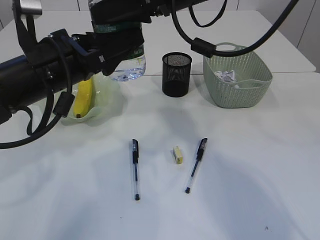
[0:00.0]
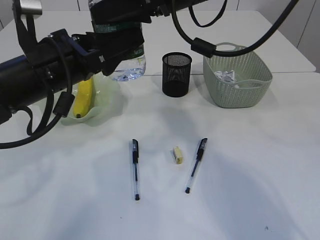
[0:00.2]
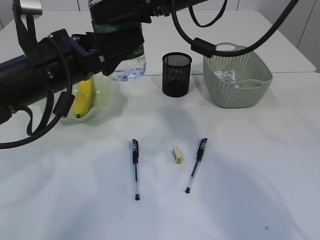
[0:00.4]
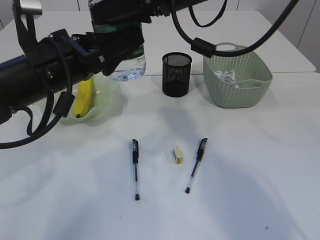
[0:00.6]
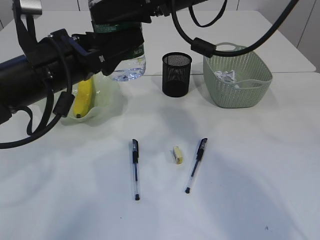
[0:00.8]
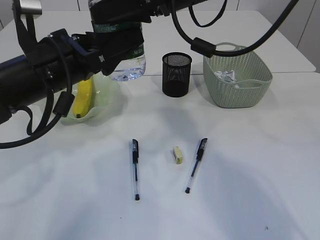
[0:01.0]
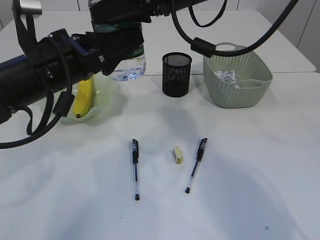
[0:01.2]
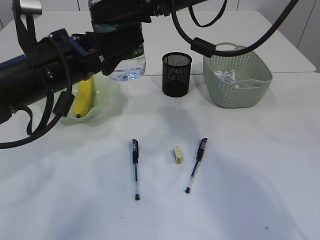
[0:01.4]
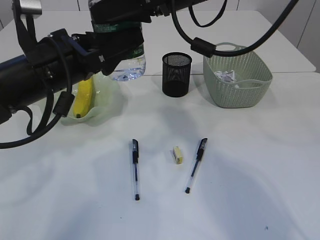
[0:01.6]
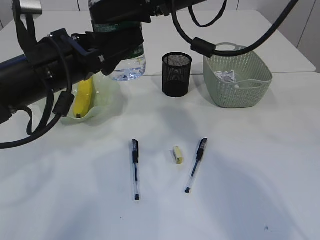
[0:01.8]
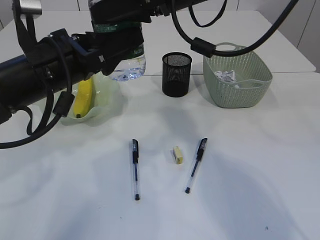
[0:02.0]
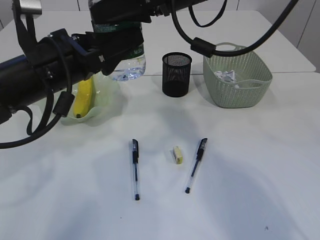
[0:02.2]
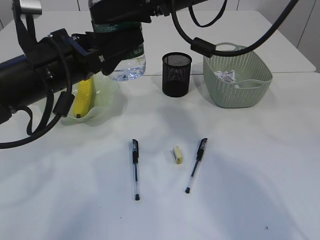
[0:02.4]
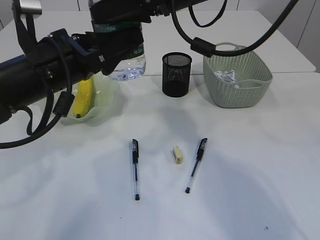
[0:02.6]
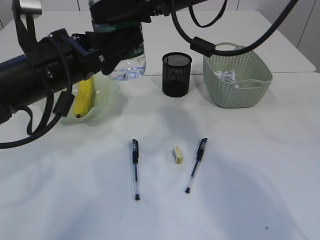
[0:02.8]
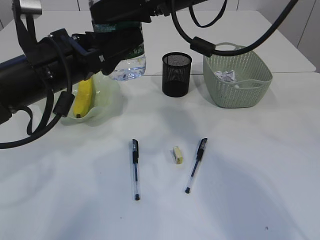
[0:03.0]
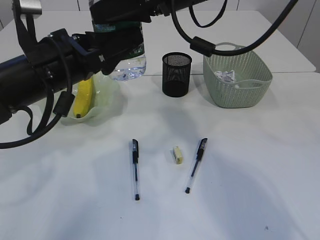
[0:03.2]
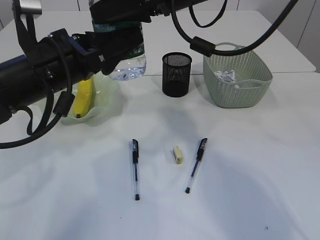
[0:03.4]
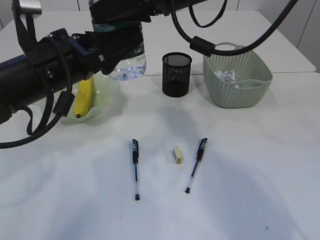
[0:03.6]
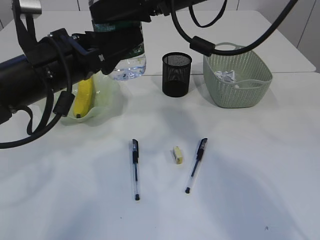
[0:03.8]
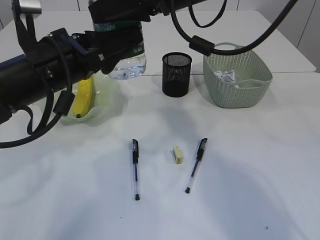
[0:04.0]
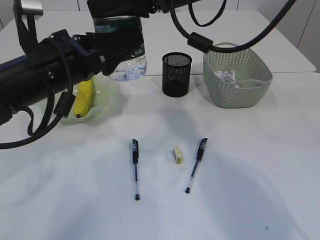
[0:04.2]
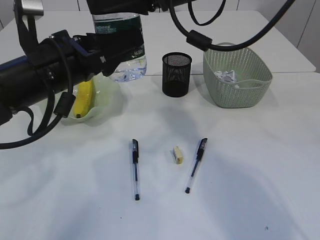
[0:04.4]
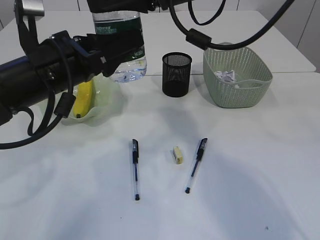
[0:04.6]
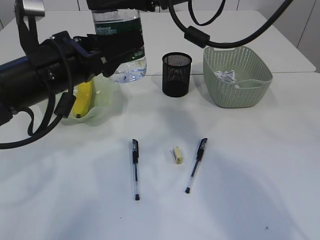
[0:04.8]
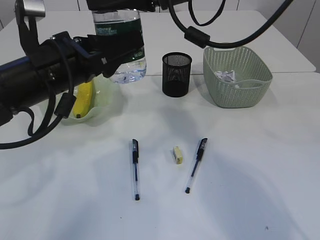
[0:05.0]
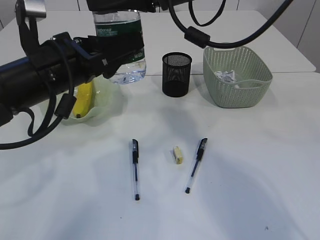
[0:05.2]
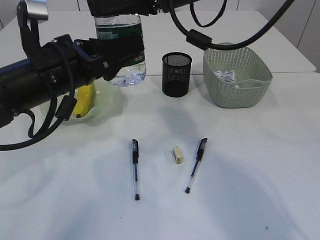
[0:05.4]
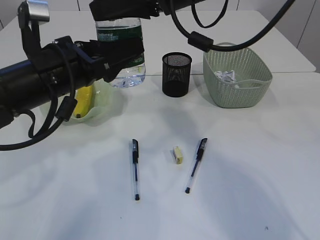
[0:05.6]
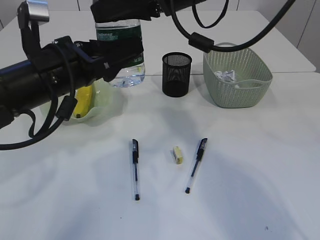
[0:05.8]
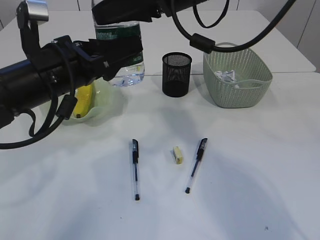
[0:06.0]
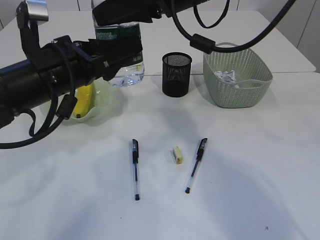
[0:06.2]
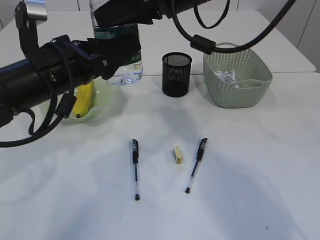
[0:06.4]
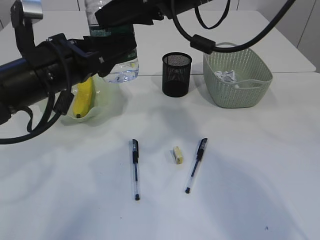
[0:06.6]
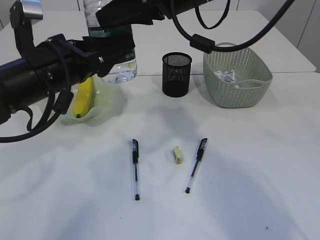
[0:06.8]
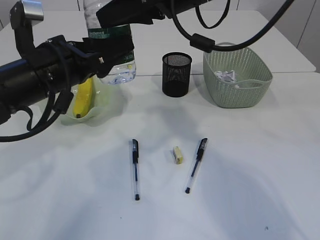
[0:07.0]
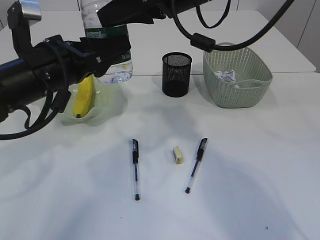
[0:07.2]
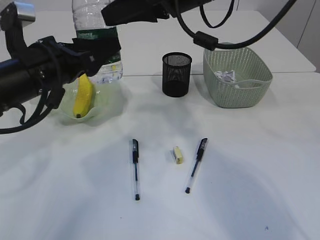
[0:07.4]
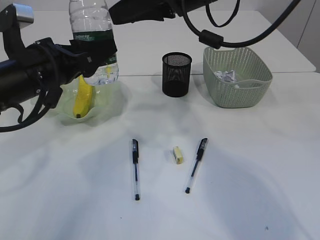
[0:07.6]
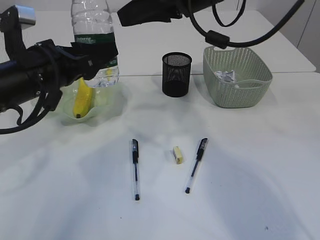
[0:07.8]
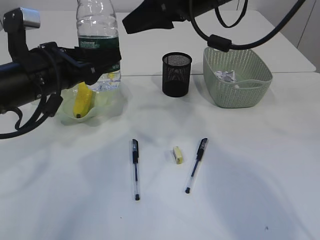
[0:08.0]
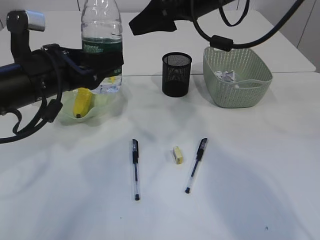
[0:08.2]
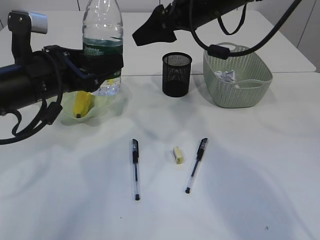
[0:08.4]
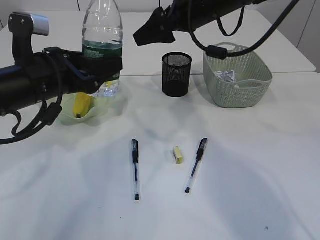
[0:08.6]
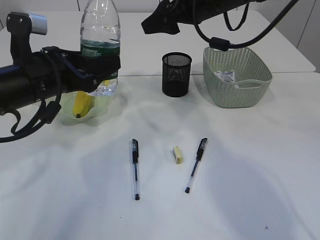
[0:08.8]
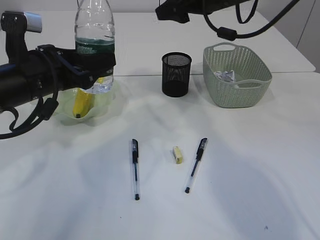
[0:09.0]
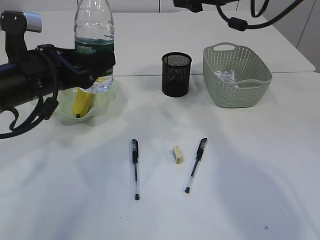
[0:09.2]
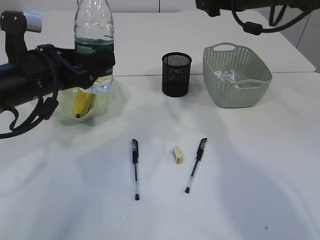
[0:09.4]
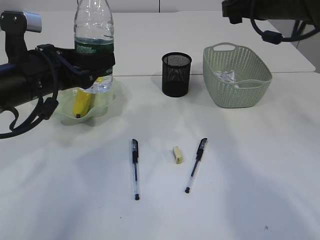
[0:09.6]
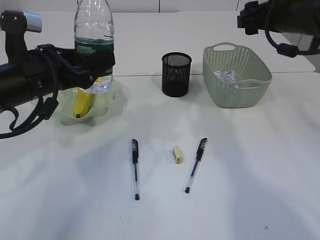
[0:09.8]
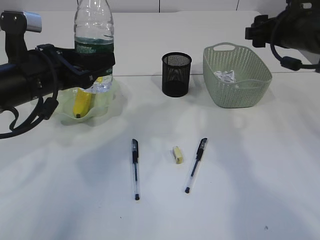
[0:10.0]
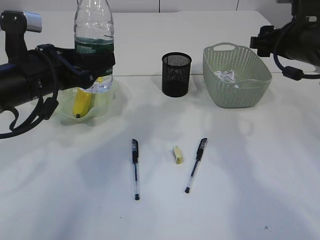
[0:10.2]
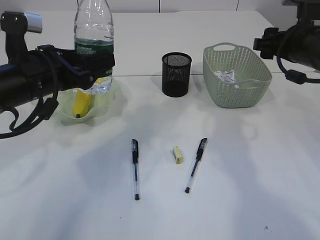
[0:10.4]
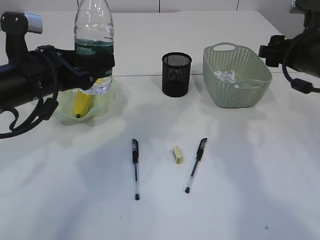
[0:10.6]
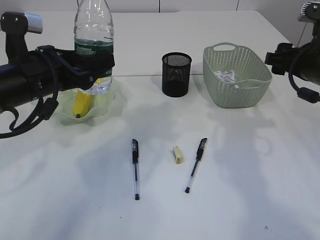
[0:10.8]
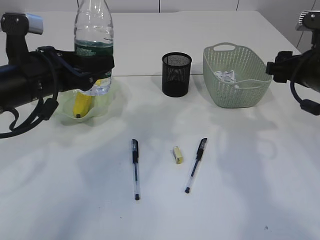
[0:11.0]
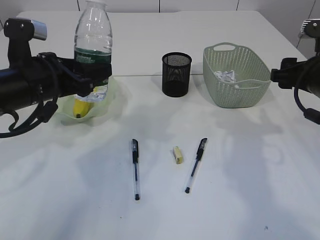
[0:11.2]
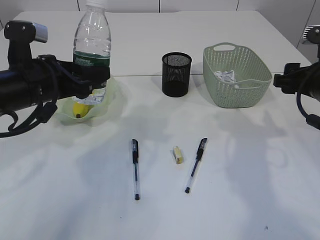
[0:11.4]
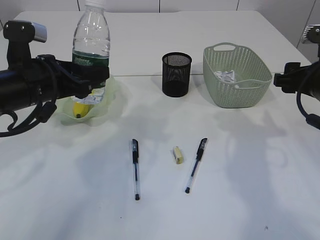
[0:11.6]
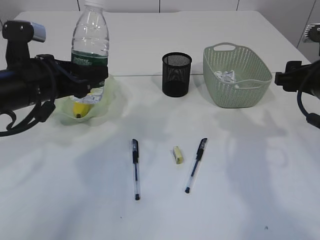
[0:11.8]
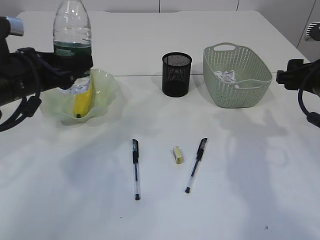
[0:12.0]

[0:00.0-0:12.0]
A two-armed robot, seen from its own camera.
Step, 0:00.0 to 0:07.6: transfer the bottle to the left arm.
0:00.0 to 0:04.4: The two grippers keep their place.
0:04.4 to 0:07.6: The grippers make only small movements.
0:07.6 to 0:09.0: The right gripper is displaced forward and to the right by about 10 cm.
0:09.0 to 0:10.4: The right gripper shifts about 15 cm to the right, backward and downward.
0:10.4 to 0:12.0: The right gripper travels backward by some 5 cm.

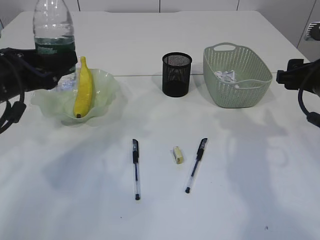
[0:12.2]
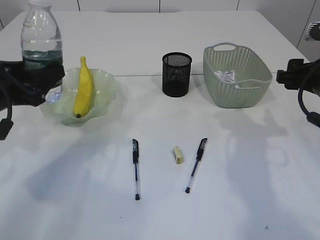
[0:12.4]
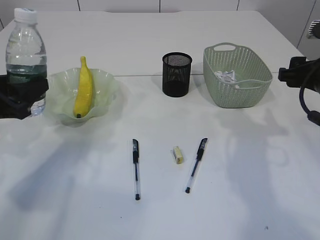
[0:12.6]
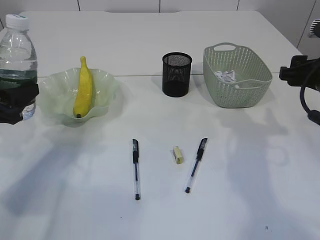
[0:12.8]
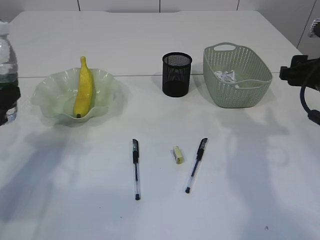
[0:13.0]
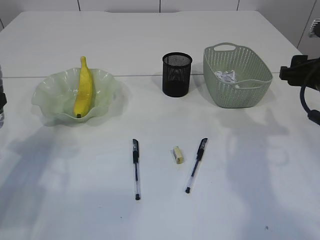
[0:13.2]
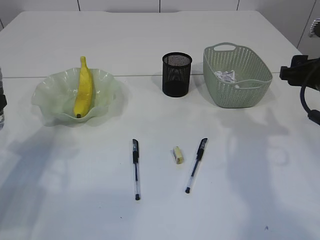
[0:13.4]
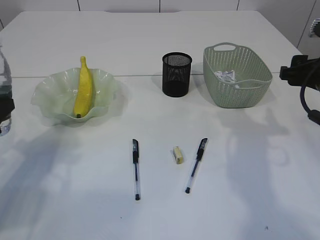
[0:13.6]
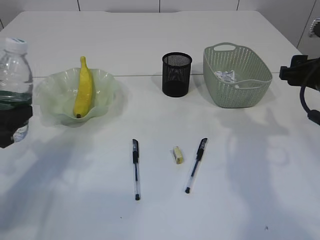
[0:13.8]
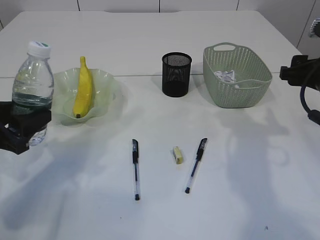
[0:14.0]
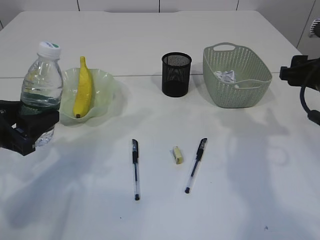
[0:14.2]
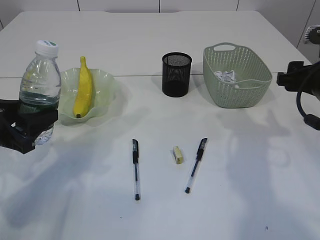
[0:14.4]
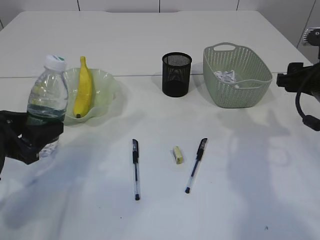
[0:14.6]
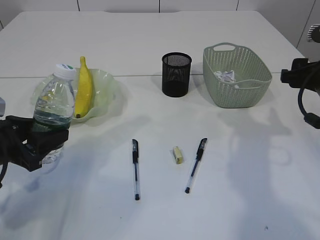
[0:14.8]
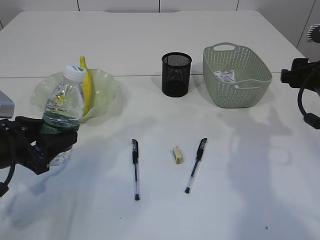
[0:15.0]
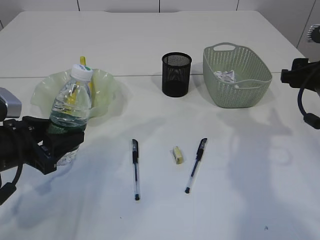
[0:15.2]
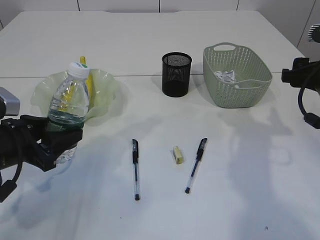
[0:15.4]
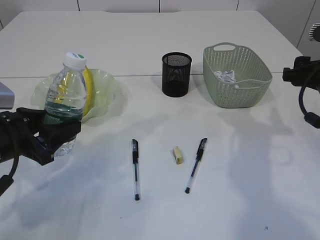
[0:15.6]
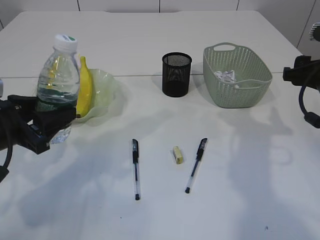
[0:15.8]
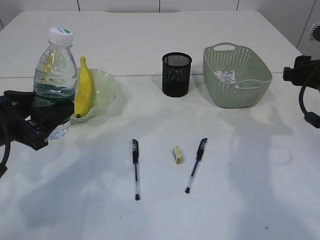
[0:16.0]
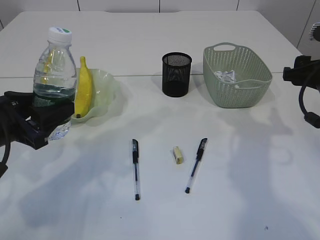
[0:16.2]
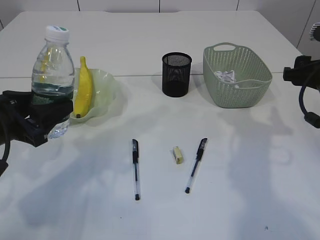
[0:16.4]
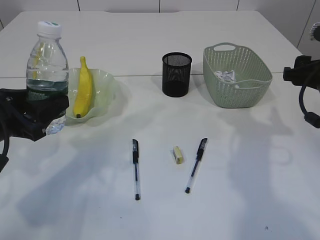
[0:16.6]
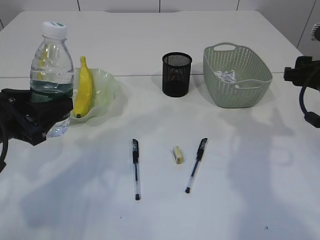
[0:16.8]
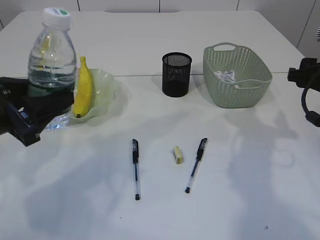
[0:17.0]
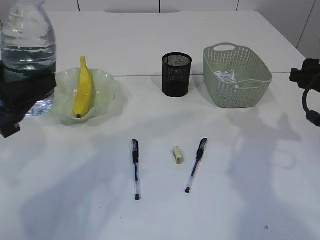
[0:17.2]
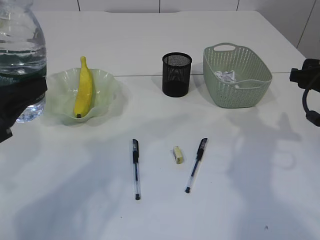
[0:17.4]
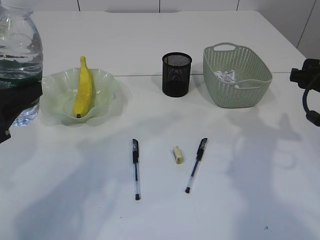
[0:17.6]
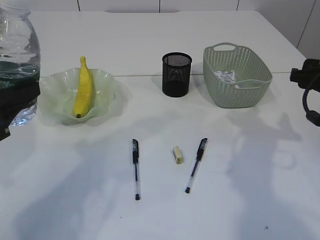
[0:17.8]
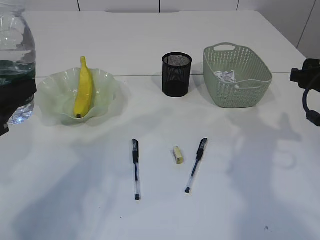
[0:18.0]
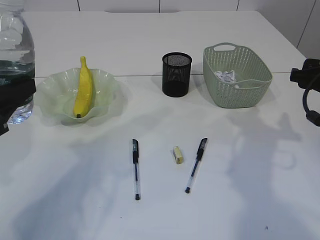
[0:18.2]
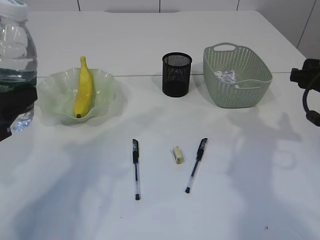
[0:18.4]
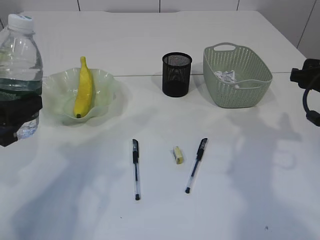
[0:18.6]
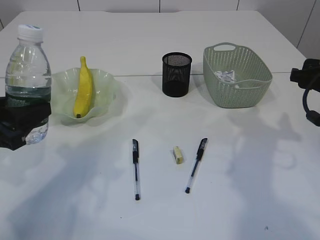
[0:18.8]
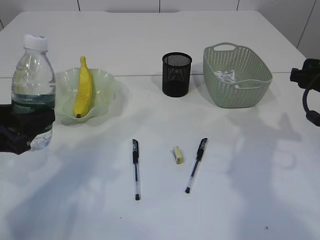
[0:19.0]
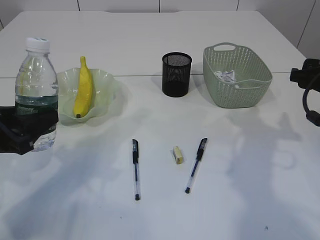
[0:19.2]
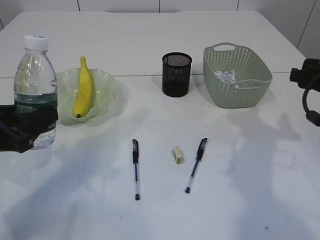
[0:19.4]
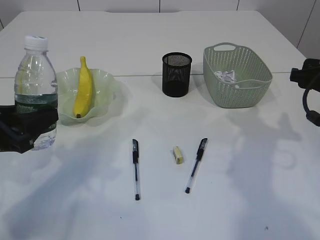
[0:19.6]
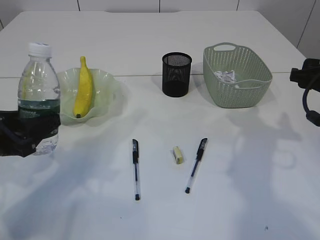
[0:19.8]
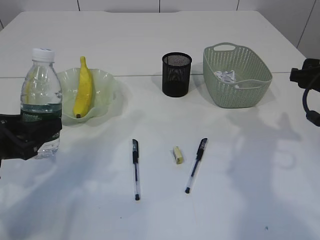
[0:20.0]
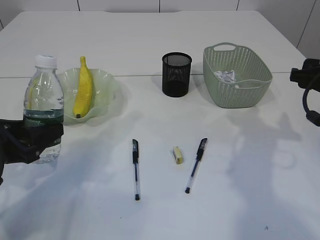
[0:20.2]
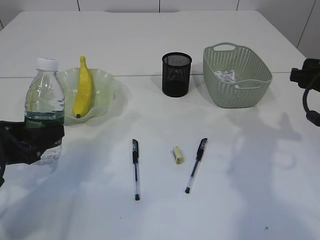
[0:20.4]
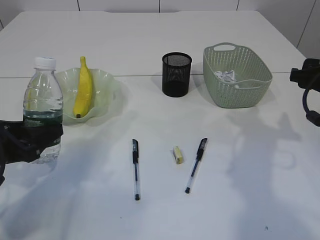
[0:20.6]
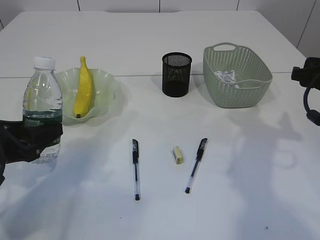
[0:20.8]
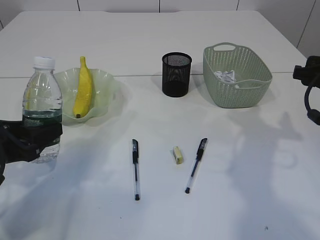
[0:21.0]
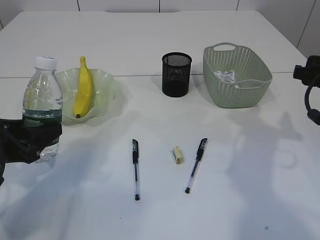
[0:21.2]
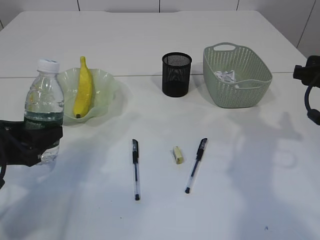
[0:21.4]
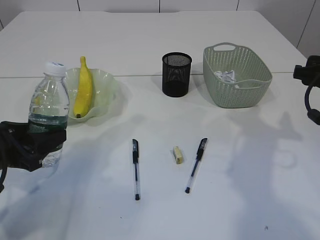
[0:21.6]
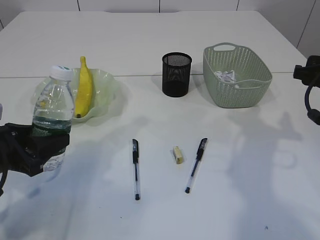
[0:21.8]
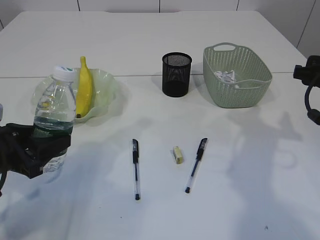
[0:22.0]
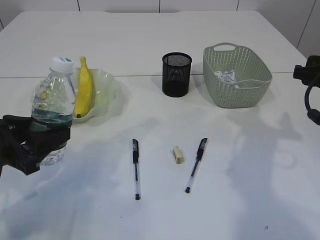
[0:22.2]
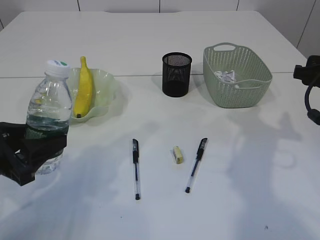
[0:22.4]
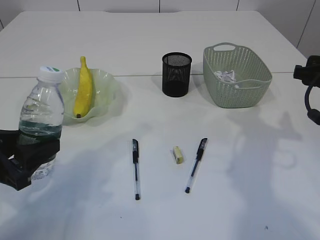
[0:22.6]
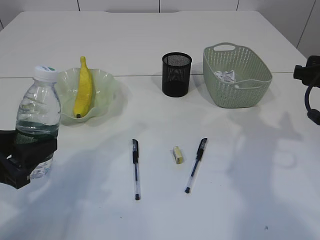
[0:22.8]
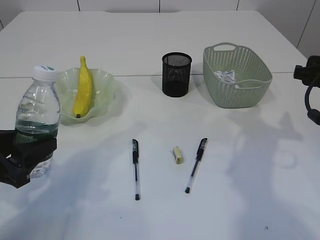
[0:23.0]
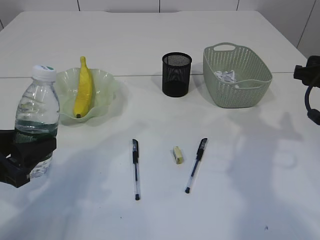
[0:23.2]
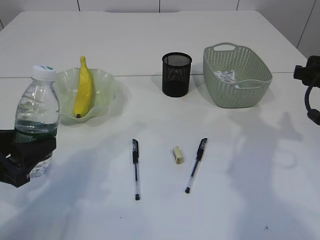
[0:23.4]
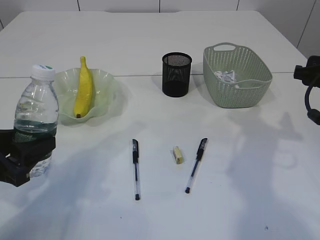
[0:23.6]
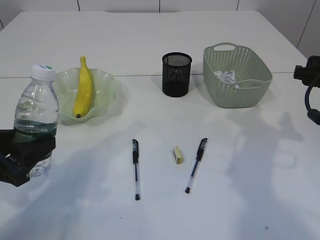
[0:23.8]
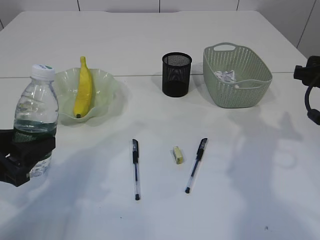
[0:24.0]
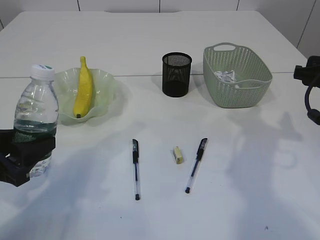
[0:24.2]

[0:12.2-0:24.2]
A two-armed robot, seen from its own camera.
0:12.2 to 0:13.8: The left gripper heads to the left, downward and backward, covering approximately 10 cm.
0:13.8 to 0:15.2: The left gripper travels to the right by approximately 5 cm.
0:15.2 to 0:16.6: There are only small adjustments of the grippers.
0:16.6 to 0:18.2: The left gripper goes about 5 cm upward.
0:18.2 to 0:19.8: The left gripper heads downward, covering approximately 5 cm.
0:19.8 to 0:22.6: The grippers make only small movements.
0:22.6 to 0:24.2: Both grippers stay put.
